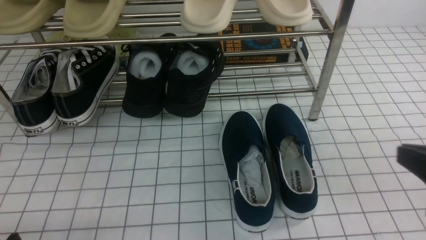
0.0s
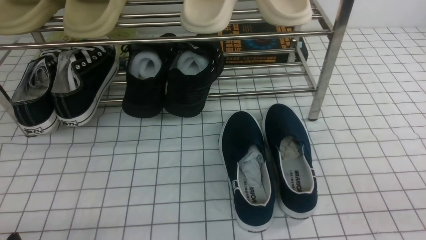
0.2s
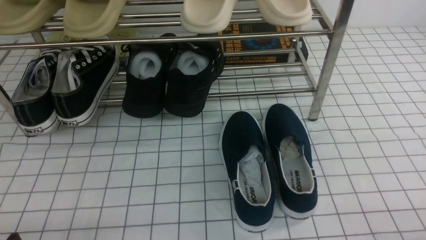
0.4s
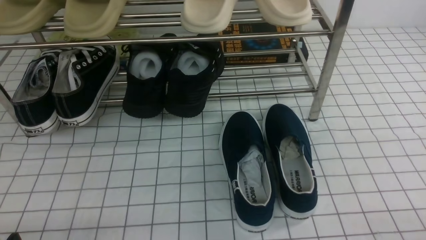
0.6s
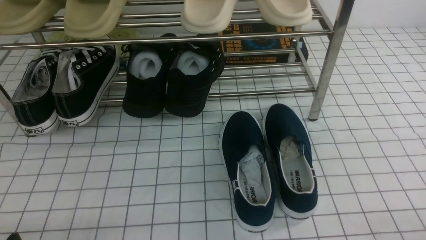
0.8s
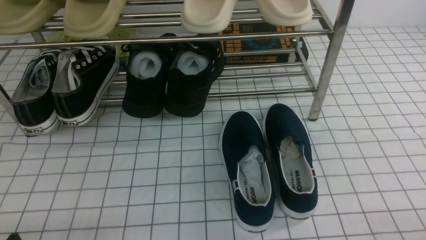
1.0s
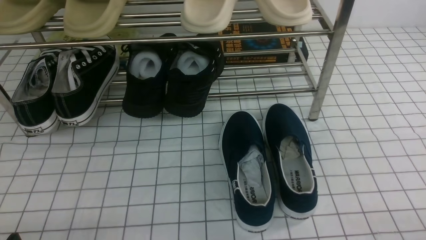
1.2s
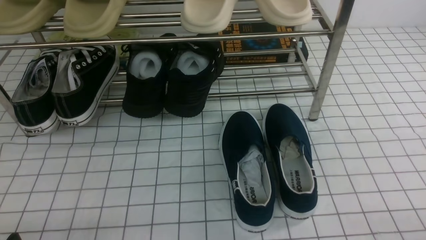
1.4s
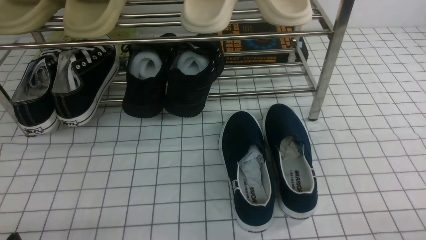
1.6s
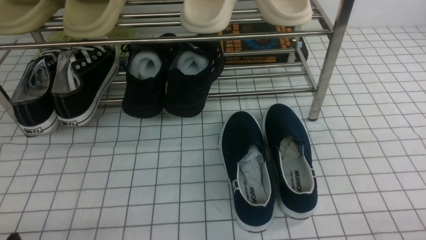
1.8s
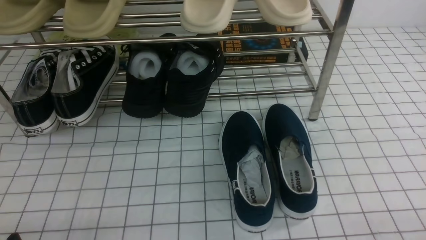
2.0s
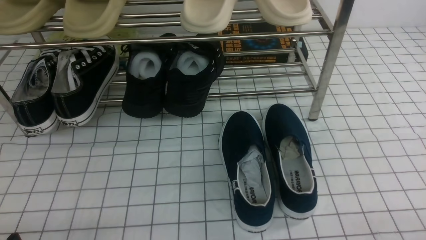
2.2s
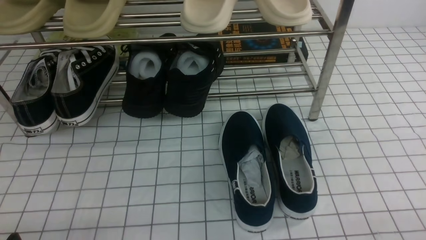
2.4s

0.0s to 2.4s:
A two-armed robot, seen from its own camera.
0.0s to 1.2s: The right gripper shifts approximately 15 cm downward, backward and to the right.
1.2s to 2.4s: Both grippers stay put.
